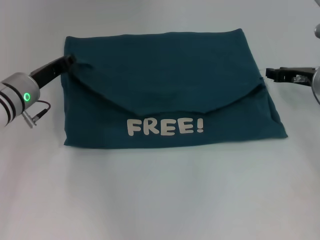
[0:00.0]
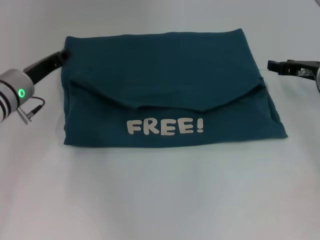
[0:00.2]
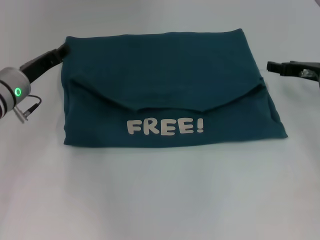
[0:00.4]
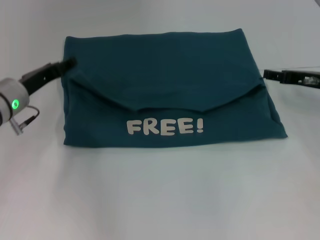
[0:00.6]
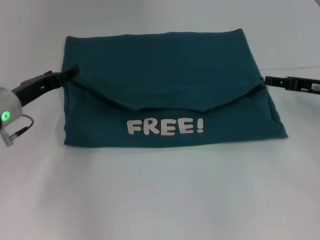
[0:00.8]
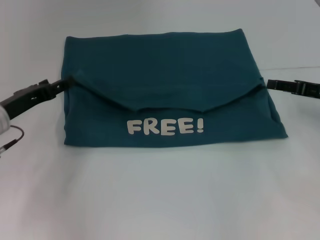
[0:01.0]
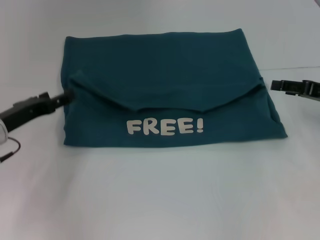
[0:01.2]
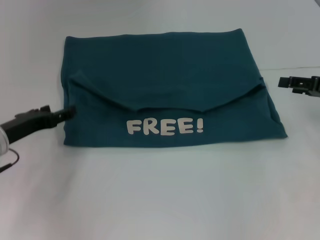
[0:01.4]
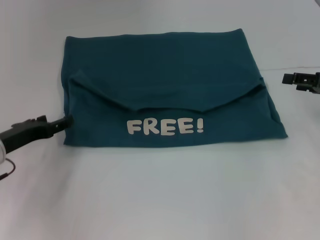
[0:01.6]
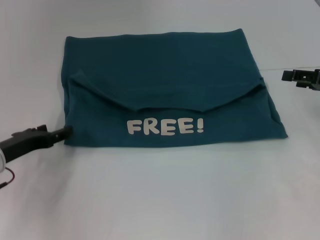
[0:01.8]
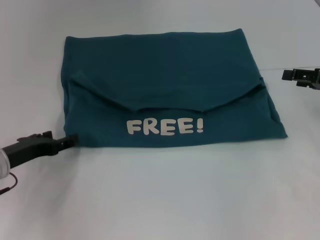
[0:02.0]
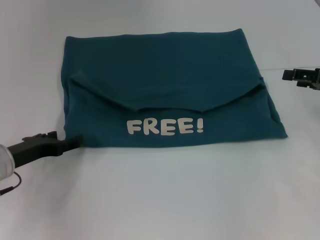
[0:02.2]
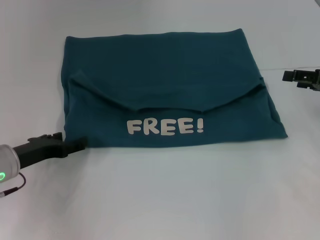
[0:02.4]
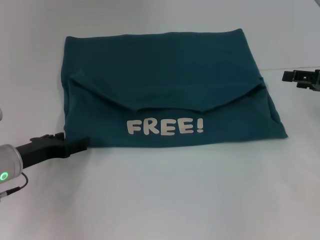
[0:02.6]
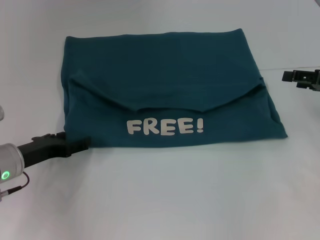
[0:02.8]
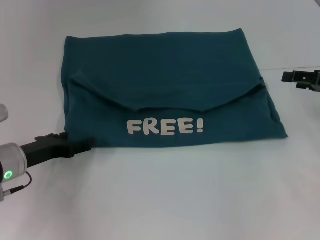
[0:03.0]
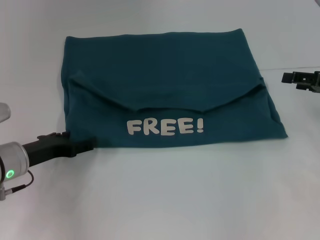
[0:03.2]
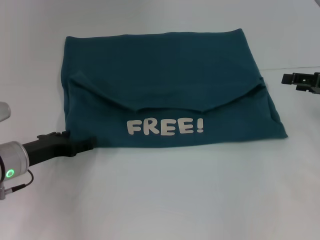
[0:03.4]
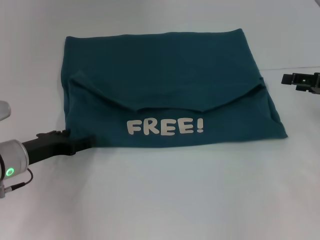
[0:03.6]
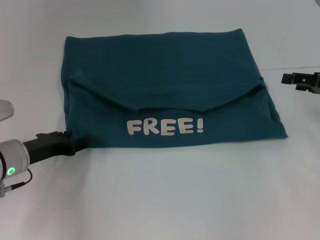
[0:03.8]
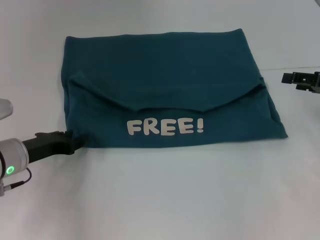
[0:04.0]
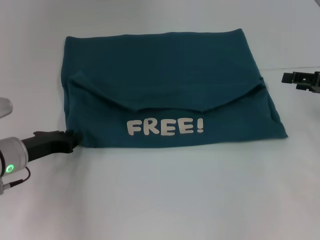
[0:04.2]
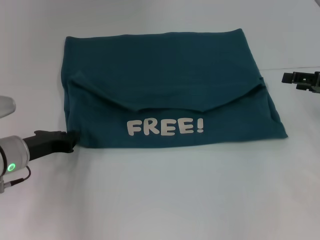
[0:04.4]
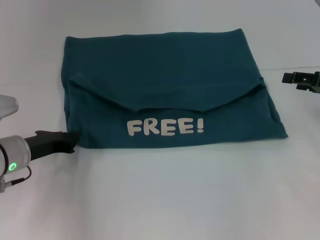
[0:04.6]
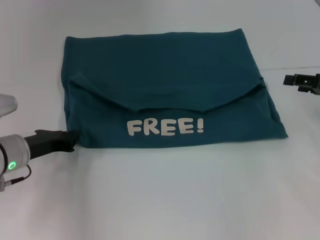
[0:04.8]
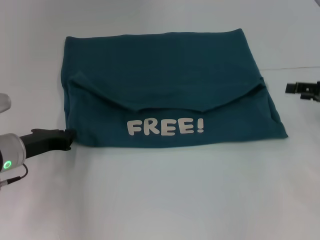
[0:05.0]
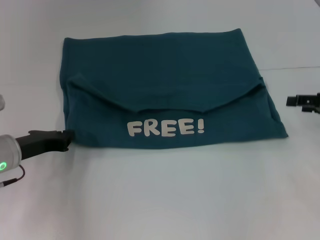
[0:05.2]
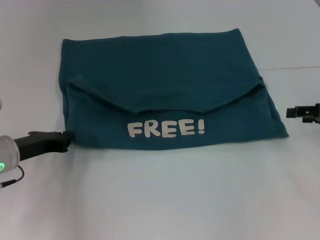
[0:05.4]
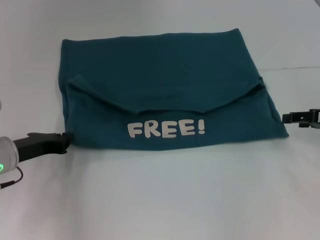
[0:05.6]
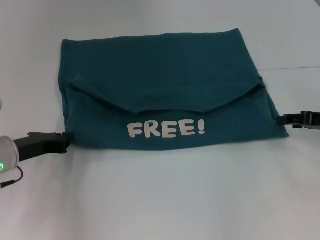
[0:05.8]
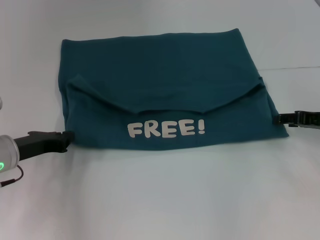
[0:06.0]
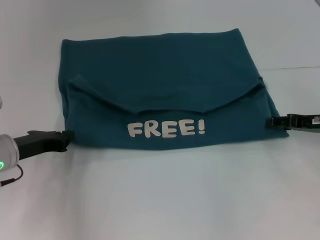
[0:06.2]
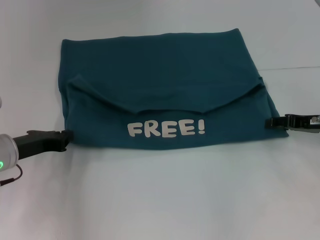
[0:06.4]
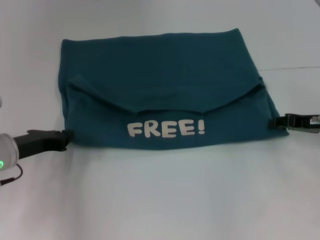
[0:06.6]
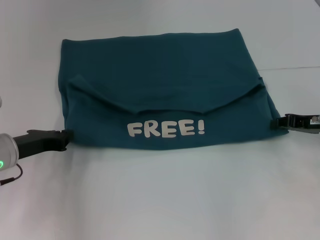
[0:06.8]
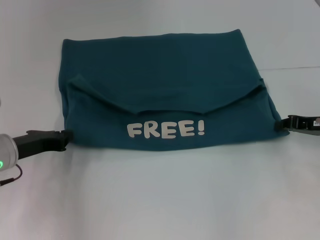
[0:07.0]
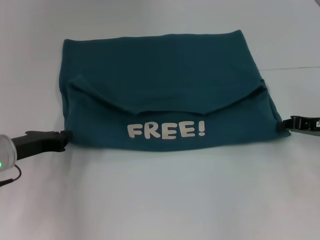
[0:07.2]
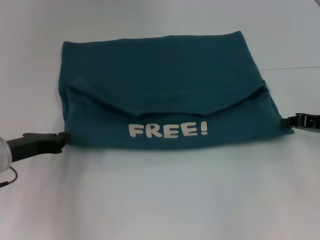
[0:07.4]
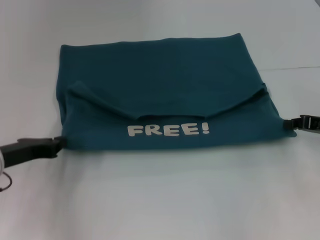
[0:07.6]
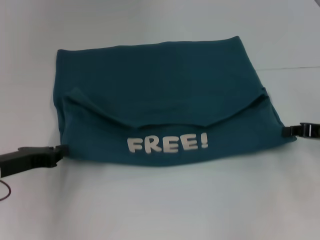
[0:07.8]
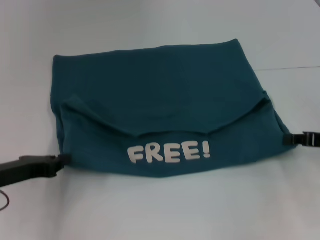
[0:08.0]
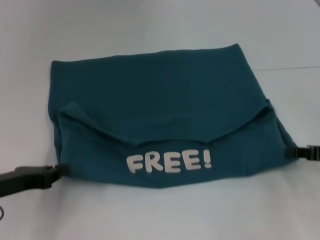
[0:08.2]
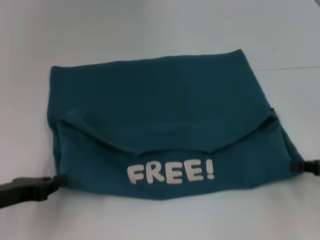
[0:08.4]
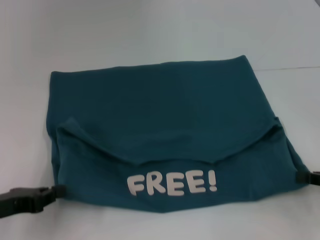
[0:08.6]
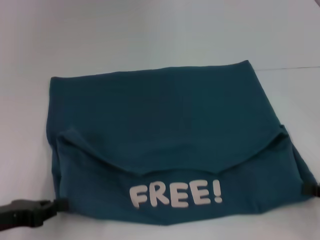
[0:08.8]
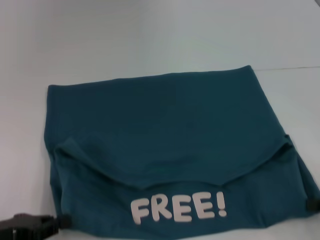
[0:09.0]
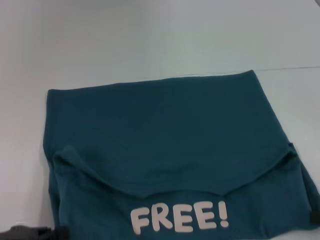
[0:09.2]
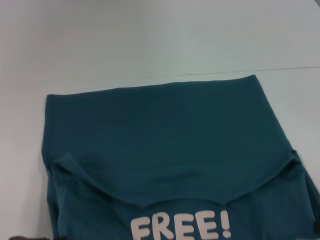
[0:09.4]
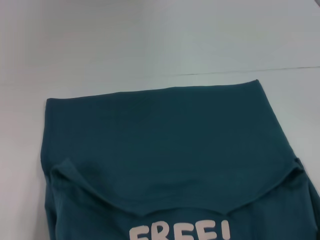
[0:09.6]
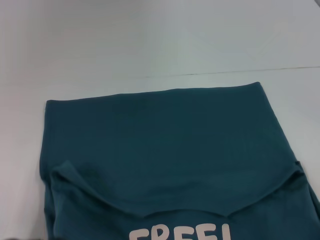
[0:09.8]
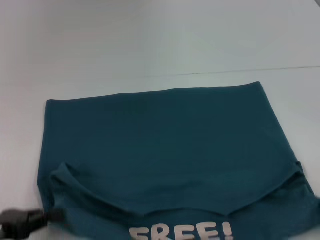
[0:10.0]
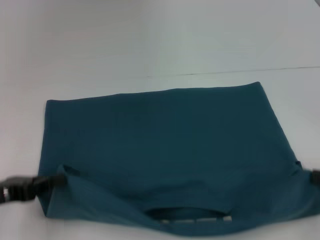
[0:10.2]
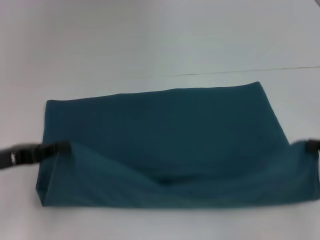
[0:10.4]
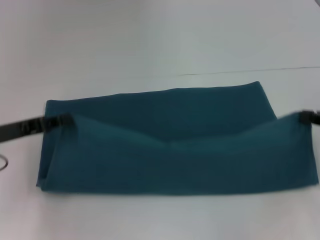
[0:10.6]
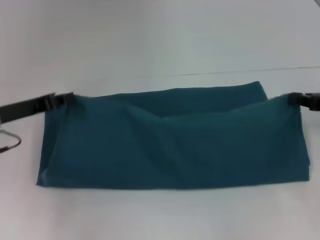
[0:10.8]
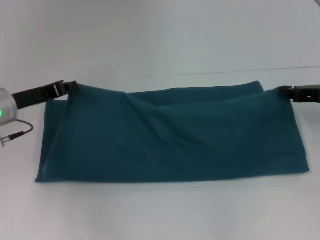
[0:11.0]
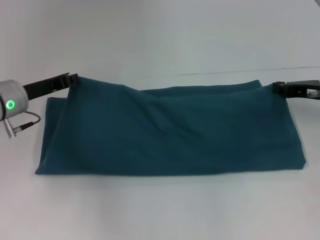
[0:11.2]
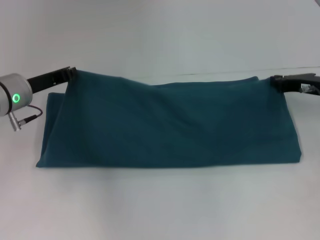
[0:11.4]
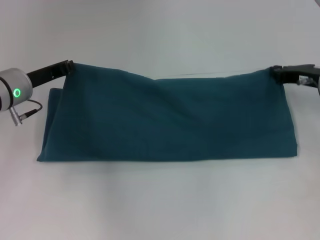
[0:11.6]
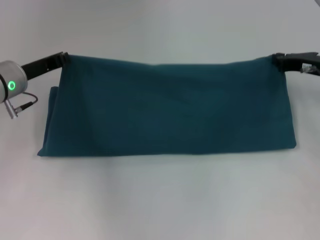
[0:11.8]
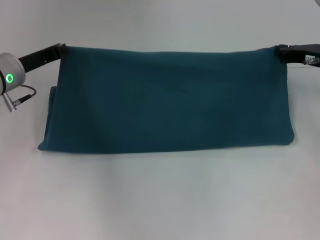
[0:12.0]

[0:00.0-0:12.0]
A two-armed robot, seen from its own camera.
Step, 0:00.8 to 0:09.4: Pull the clothes with your left hand.
Step, 0:00.8 to 0:09.4: Pull the clothes with your right hand.
0:00.0 to 0:01.6: The left gripper is displaced backward and to the left by about 10 cm, and opens its fingers, while the right gripper goes approximately 10 cm to the right and backward, and opens up.
0:01.6 to 0:03.0: The grippers stay close to where they were, moving slightly.
0:03.0 to 0:04.4: The left gripper closes its fingers.
0:04.4 to 0:06.0: The grippers make only small movements.
0:06.0 to 0:07.6: The right gripper closes up.
0:07.6 to 0:09.0: The two grippers go some 10 cm backward.
0:09.0 to 0:10.4: Both grippers travel together forward, approximately 5 cm.
0:10.4 to 0:12.0: The right gripper goes roughly 20 cm forward and to the left. The left gripper shifts some 15 cm forward and to the right.

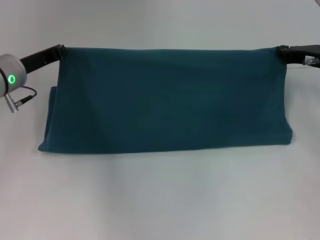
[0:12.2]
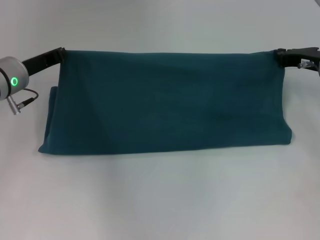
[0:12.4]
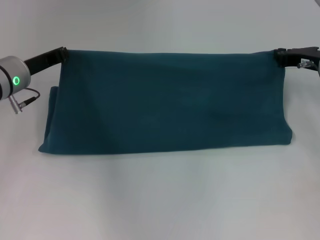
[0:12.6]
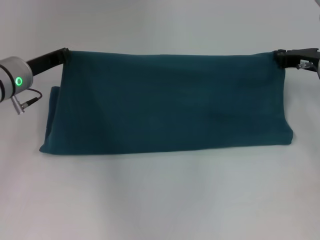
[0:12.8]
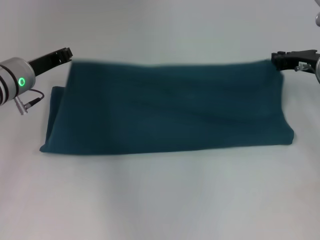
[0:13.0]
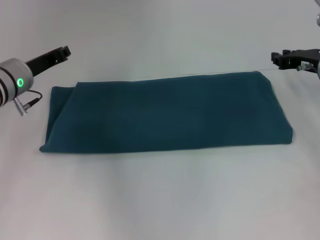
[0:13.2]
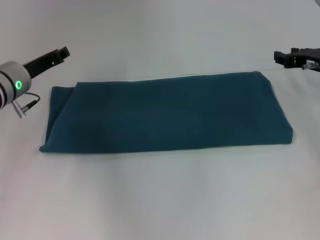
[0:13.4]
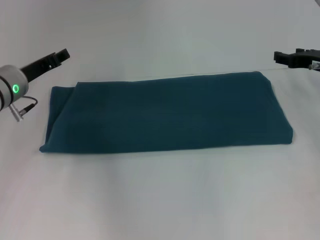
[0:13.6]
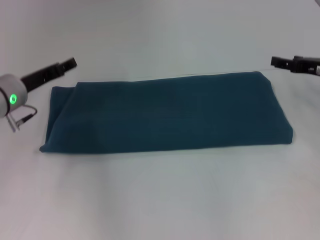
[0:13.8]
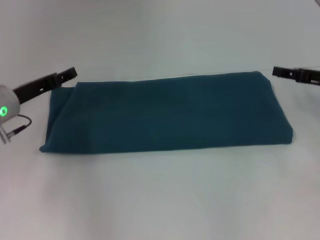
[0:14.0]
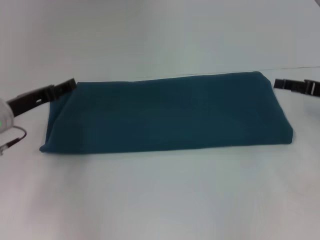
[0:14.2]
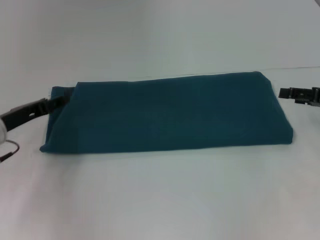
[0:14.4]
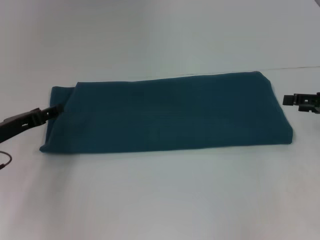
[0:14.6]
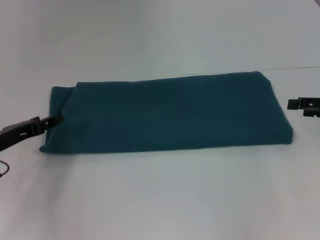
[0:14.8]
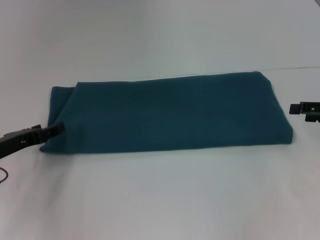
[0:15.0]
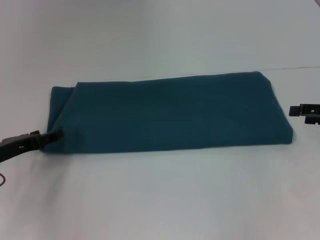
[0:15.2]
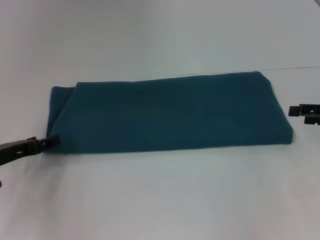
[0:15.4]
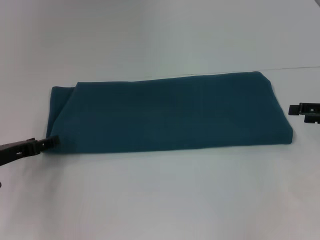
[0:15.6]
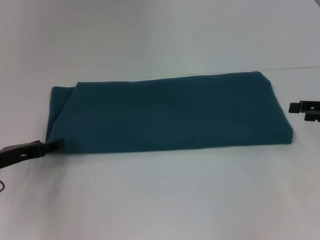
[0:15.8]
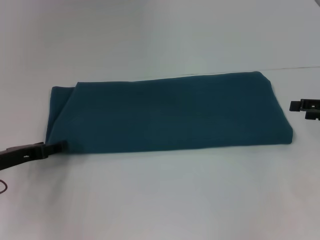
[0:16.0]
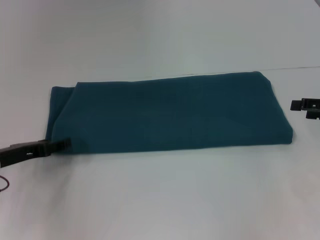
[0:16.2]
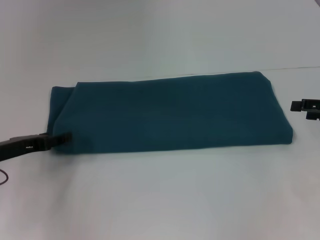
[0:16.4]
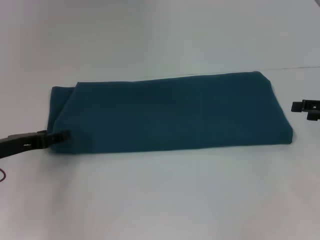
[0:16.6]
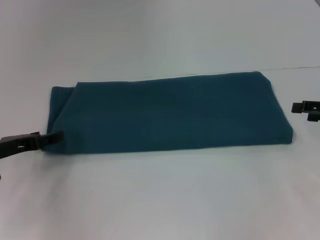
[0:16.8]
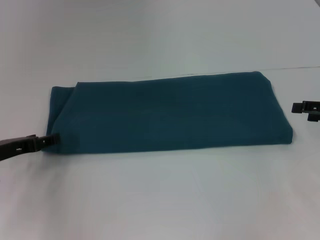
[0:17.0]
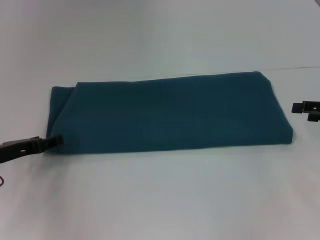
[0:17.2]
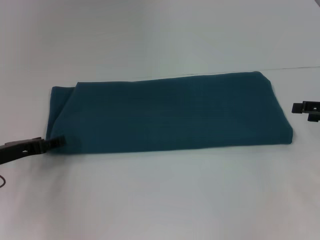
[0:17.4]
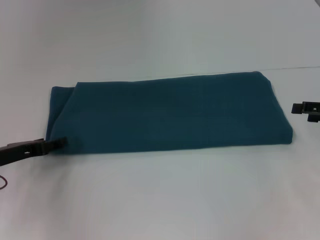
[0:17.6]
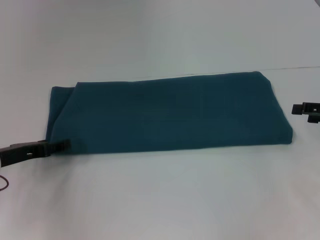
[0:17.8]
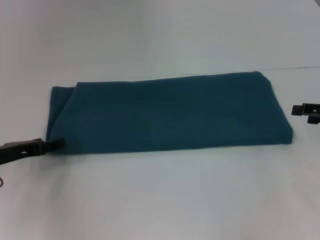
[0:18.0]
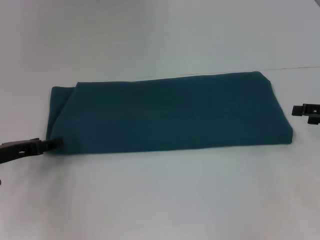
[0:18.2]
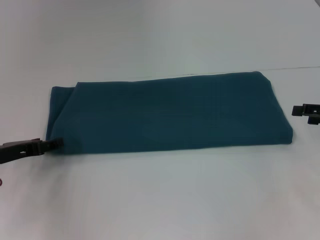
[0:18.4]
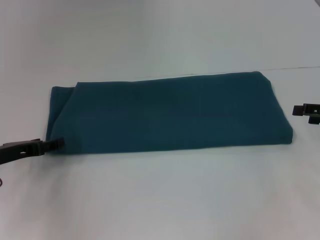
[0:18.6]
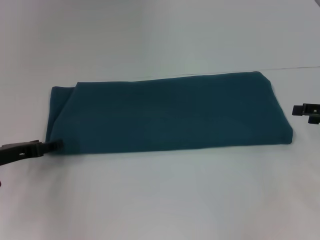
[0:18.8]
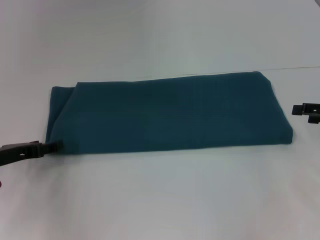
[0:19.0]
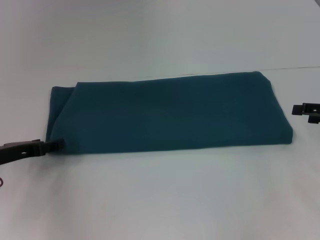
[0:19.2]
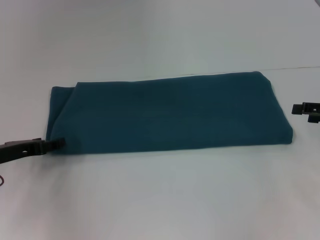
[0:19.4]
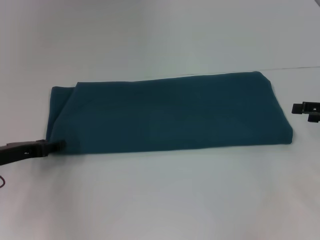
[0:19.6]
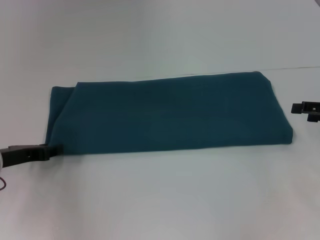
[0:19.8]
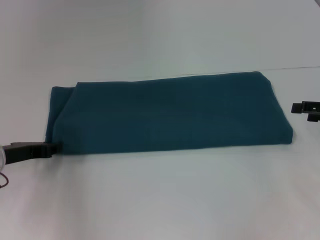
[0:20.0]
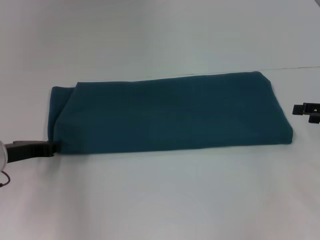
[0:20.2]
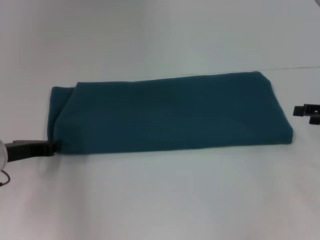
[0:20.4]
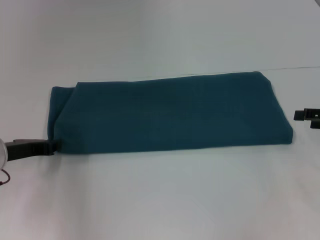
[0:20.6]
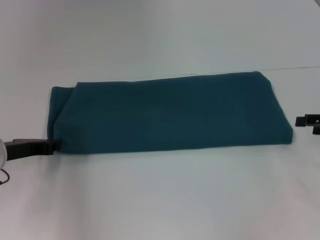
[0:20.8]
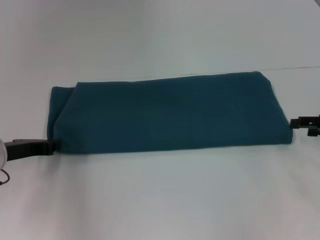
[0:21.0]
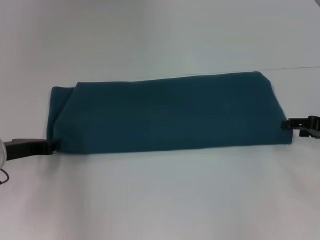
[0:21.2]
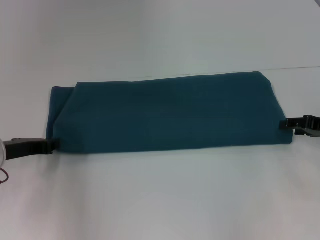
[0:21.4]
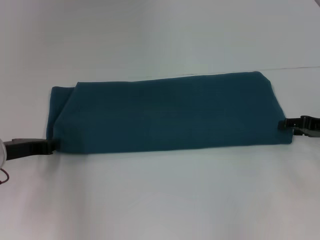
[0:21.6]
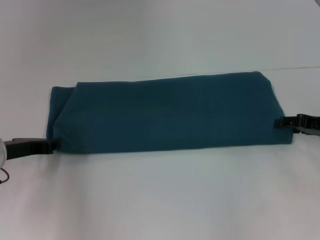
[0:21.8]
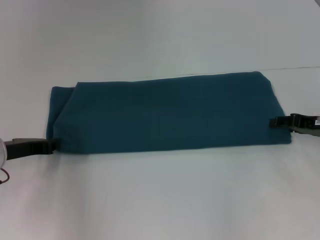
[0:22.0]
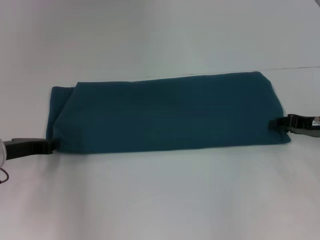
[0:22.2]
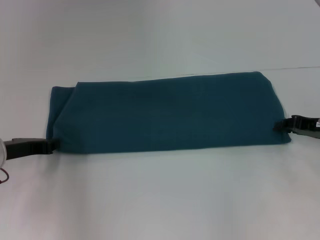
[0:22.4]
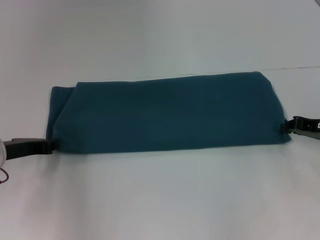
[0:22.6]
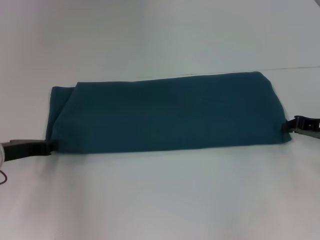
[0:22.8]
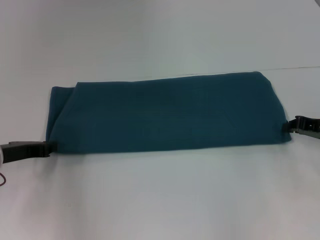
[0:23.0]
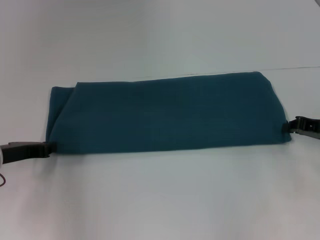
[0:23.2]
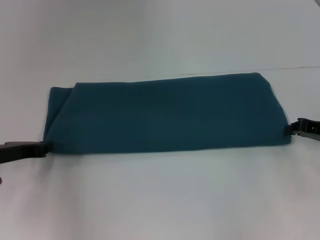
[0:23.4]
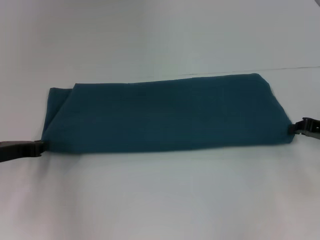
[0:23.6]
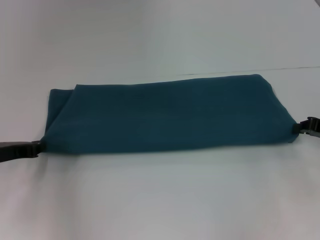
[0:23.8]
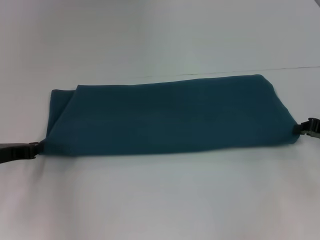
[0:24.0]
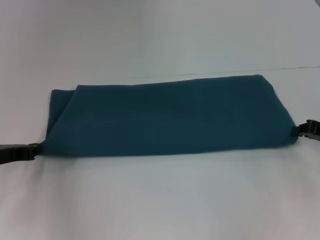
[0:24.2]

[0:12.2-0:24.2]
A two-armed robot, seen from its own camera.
0:12.2 to 0:13.8: The right gripper opens up, while the left gripper opens up.
0:13.8 to 0:15.2: The right gripper is displaced backward by roughly 10 cm, while the left gripper shifts roughly 10 cm backward and to the left.
0:15.2 to 0:19.8: The grippers move only a little.
0:19.8 to 0:21.2: The left gripper closes.
0:22.6 to 0:24.2: The grippers make only small movements.
